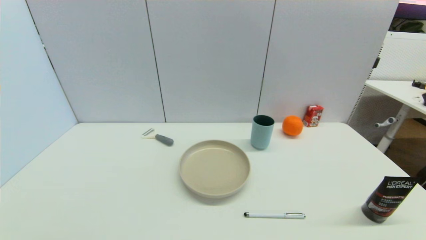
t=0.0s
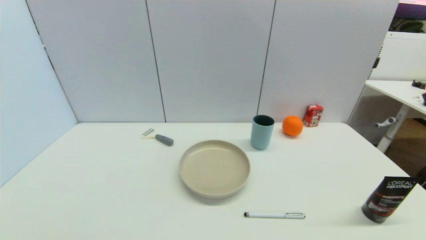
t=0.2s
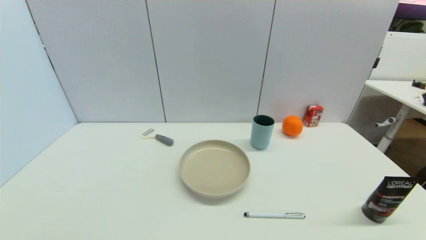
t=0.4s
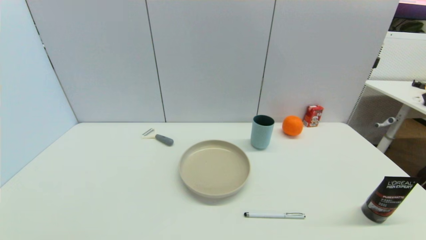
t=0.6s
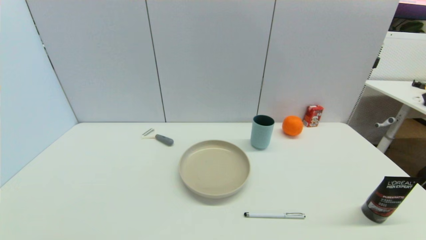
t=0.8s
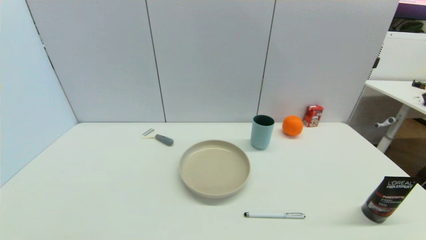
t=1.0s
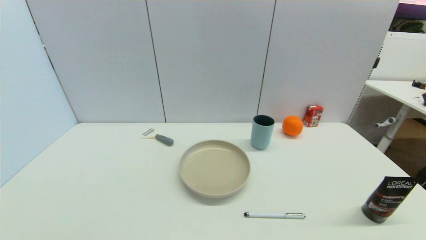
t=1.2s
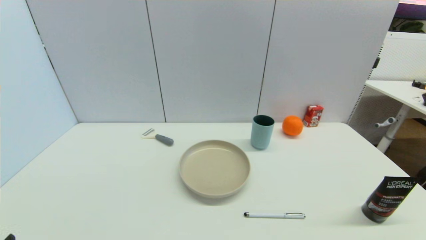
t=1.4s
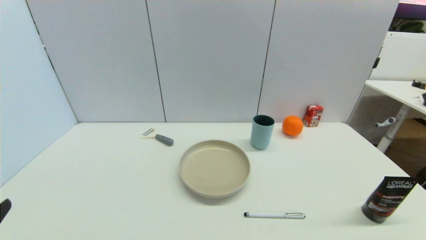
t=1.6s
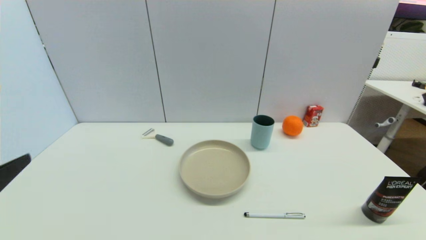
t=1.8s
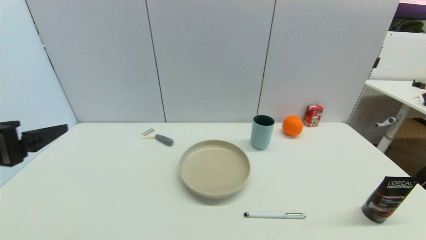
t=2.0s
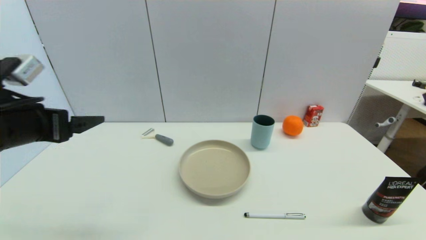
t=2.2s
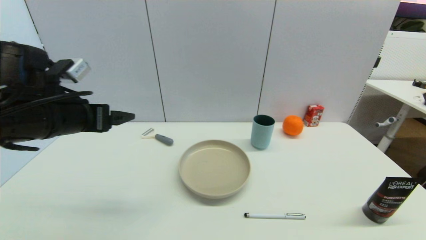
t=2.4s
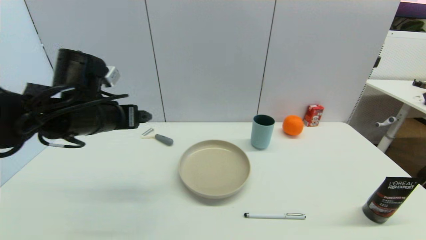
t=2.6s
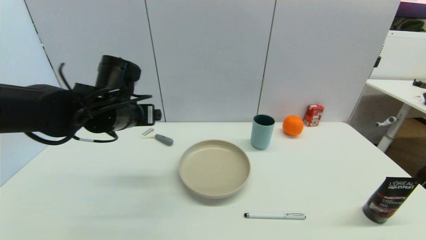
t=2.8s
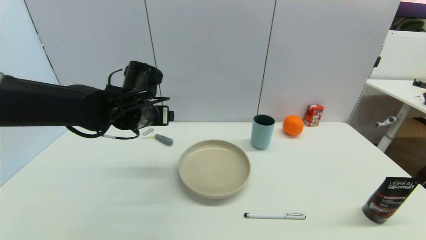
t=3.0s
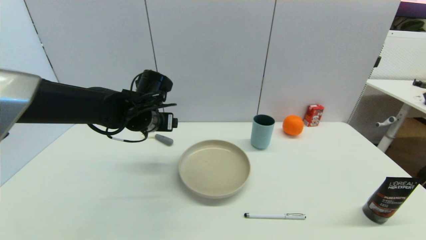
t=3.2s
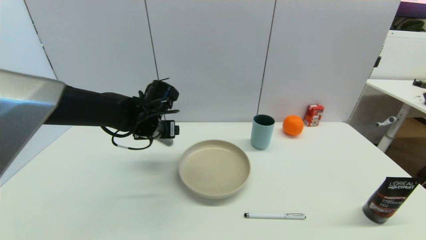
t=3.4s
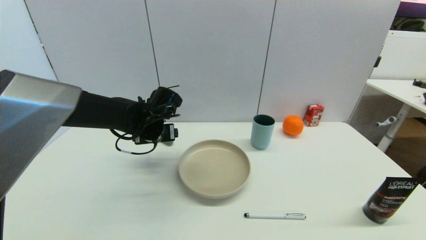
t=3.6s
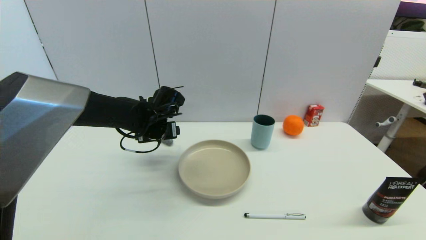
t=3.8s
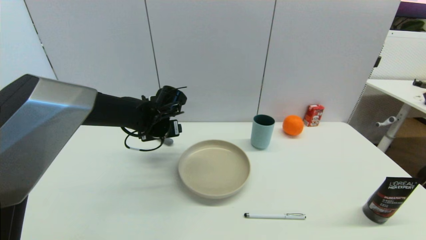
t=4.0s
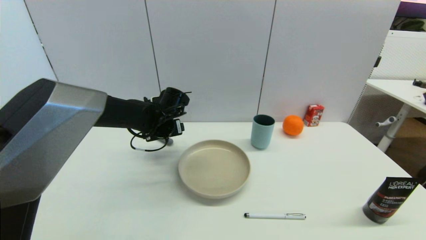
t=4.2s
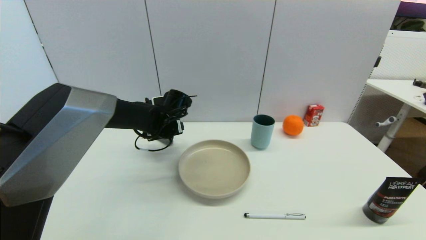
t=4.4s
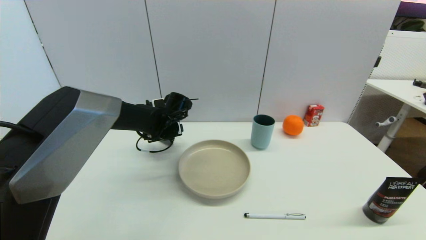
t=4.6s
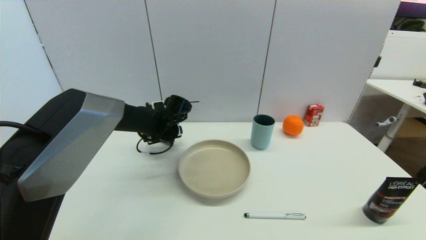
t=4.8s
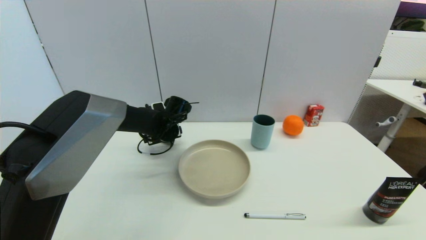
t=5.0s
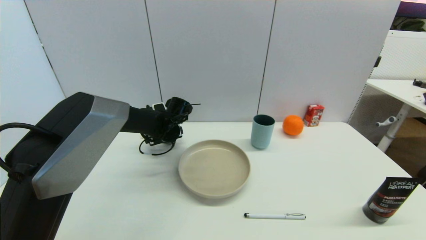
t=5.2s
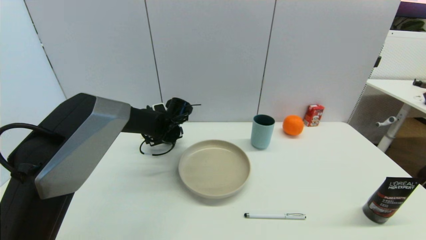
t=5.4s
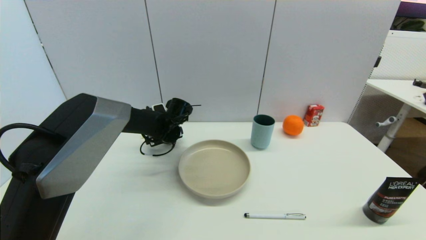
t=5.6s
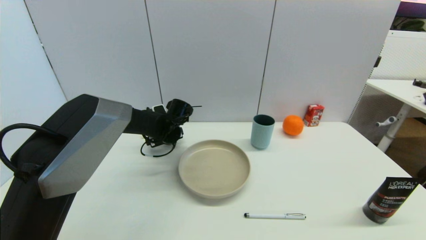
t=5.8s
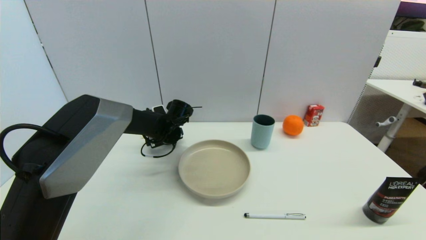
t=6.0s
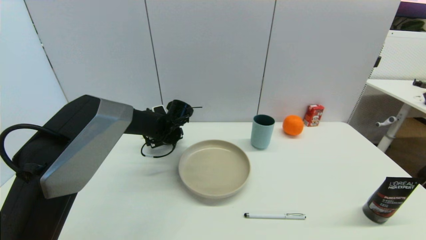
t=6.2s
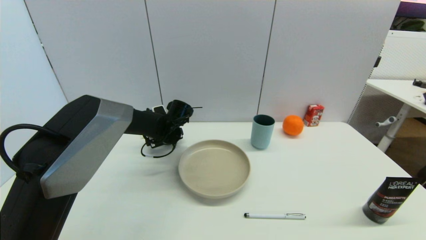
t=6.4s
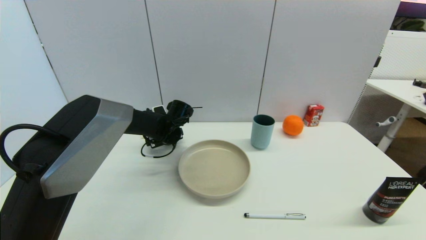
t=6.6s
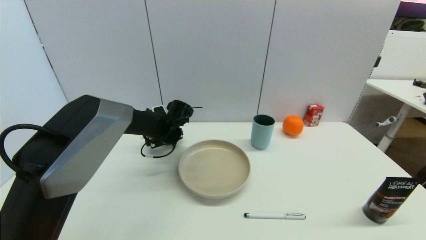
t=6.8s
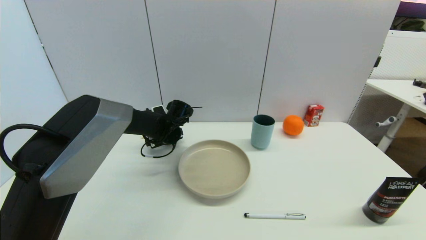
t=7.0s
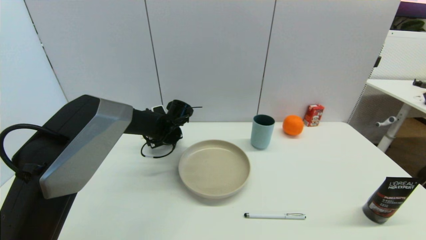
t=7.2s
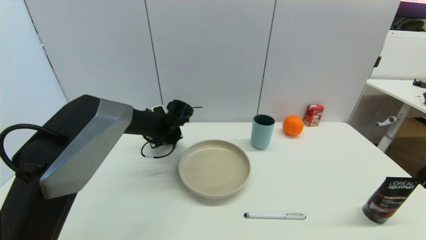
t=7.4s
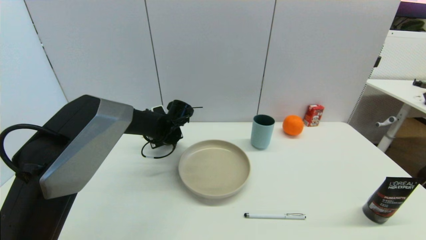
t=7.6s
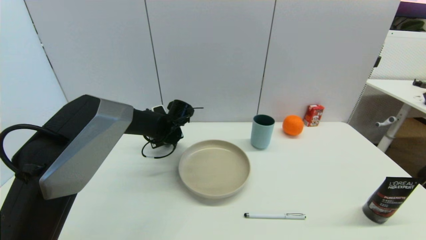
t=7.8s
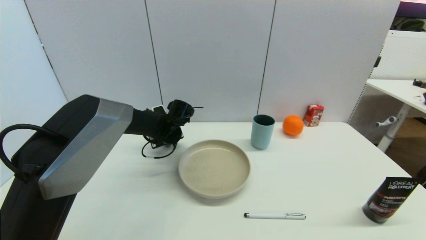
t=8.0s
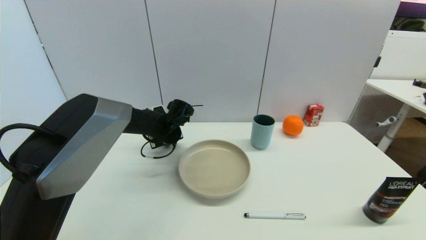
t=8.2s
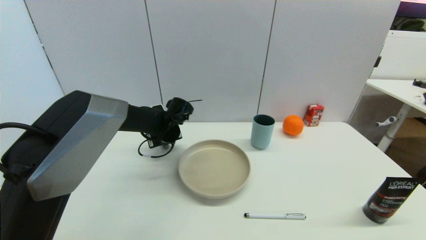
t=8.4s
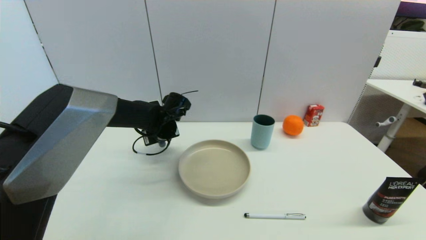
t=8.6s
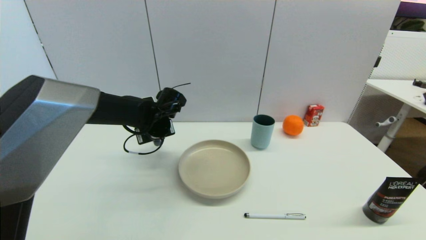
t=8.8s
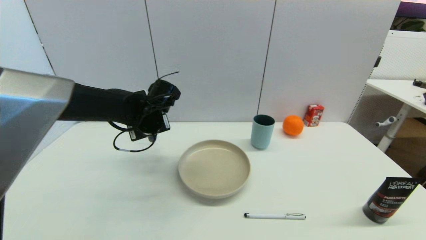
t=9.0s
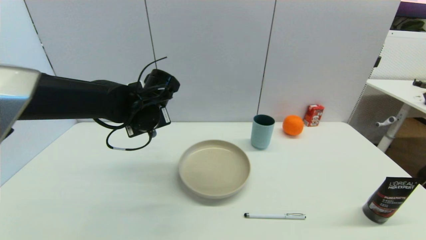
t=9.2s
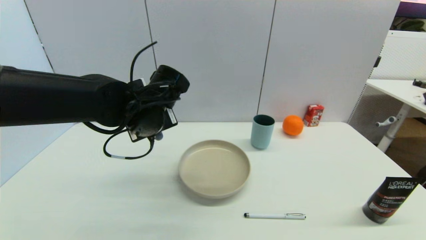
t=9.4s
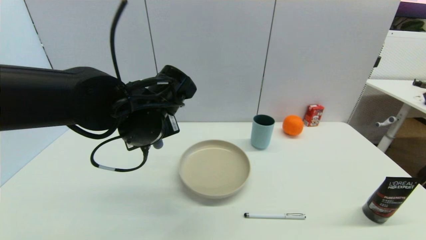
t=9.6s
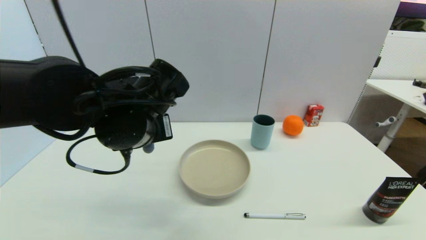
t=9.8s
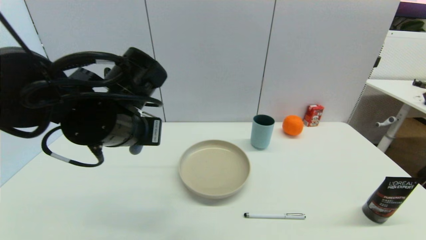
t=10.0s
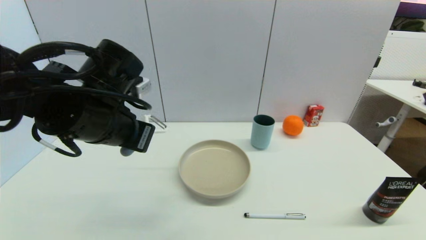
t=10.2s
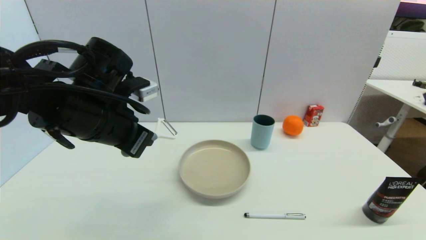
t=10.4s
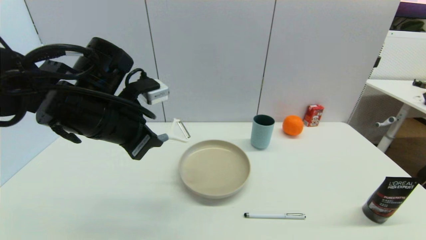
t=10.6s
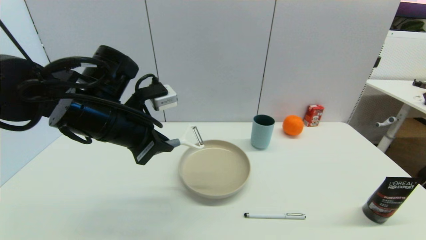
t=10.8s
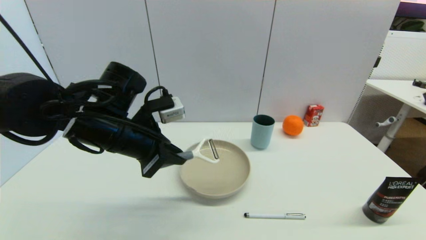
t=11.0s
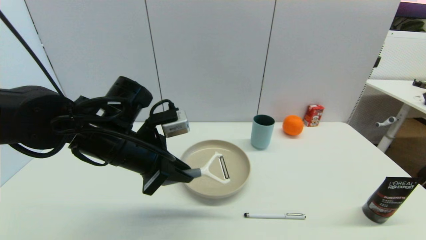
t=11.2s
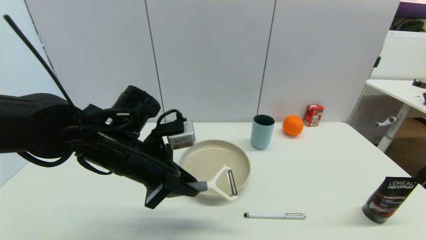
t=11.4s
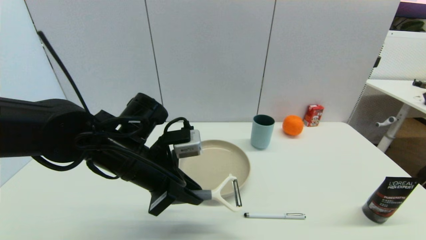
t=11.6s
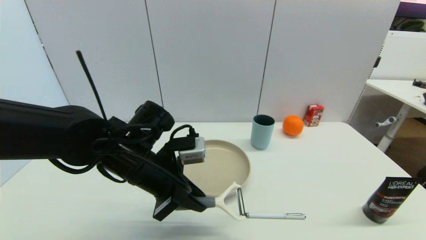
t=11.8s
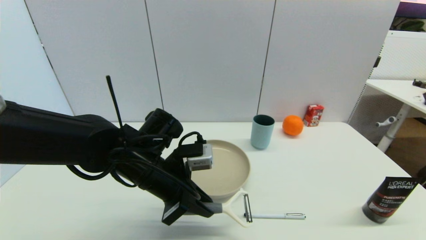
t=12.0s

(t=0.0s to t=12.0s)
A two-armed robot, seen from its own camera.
Step, t=1.6s - t=8.6s: Grasp the peeler with left gripper.
t=1.6s - t=3.0s: The left gripper moves forward and to the right, about 35 cm.
t=3.0s - t=4.4s: The left gripper moves downward and forward, approximately 10 cm.
t=4.4s - t=6.0s: The grippers move only a little.
t=7.6s - t=9.0s: The left gripper goes approximately 10 cm upward and backward.
t=9.0s - t=10.4s: The left gripper moves backward and upward, some 15 cm.
t=10.4s - t=12.0s: The left gripper shifts some 10 cm downward and to the right.

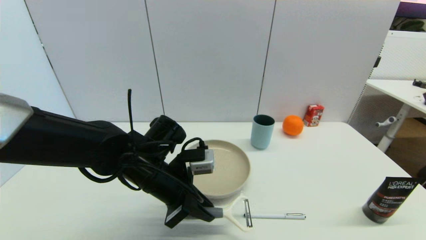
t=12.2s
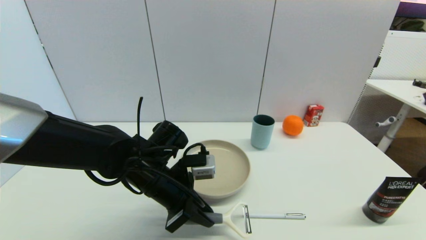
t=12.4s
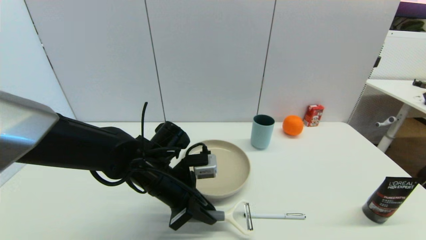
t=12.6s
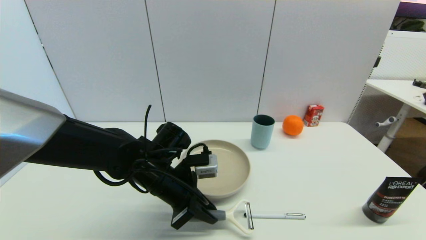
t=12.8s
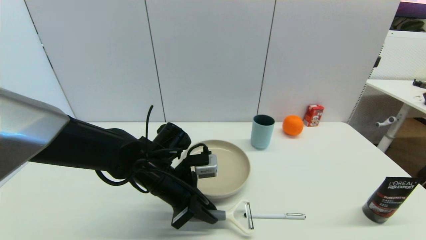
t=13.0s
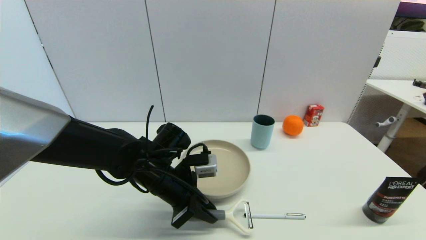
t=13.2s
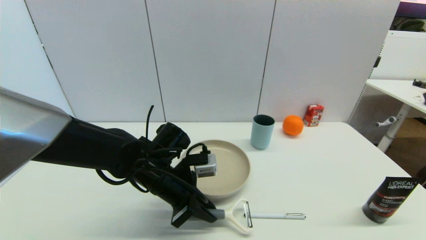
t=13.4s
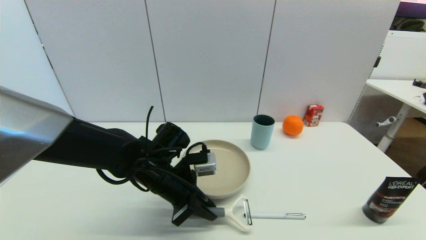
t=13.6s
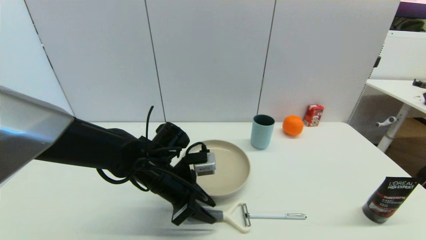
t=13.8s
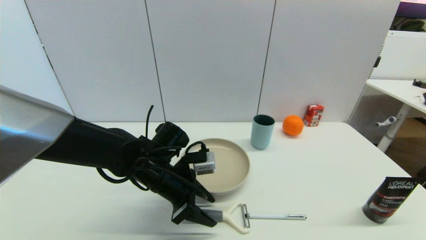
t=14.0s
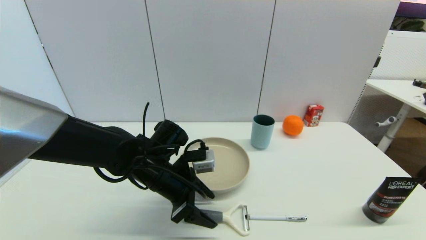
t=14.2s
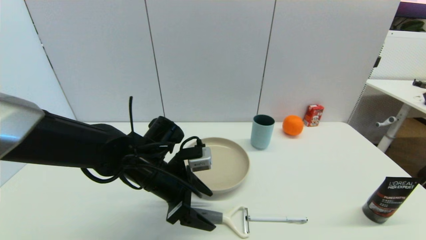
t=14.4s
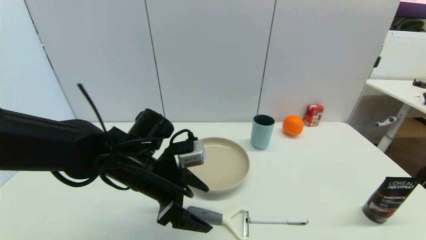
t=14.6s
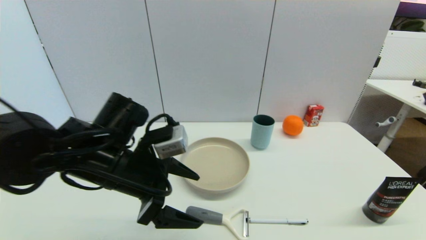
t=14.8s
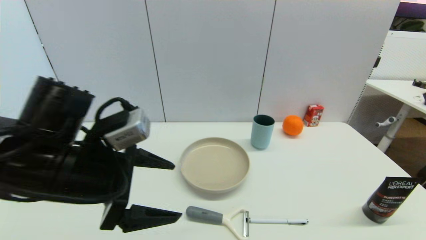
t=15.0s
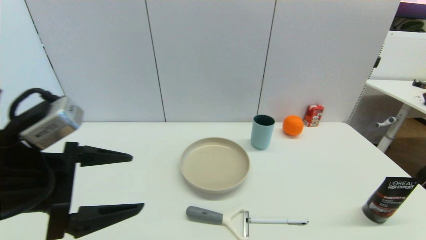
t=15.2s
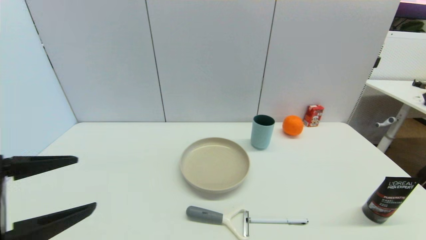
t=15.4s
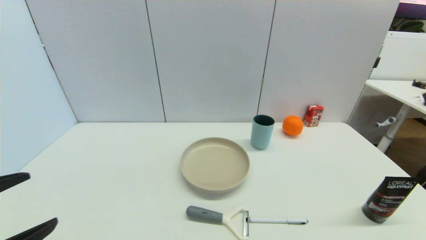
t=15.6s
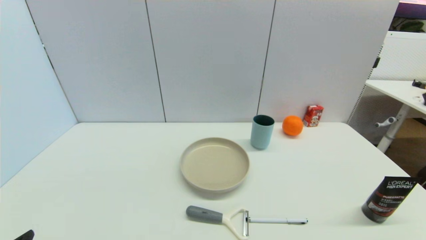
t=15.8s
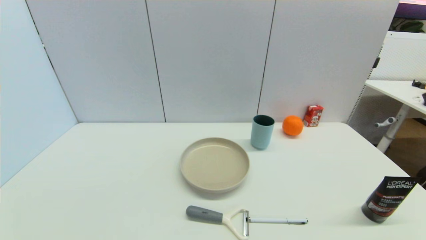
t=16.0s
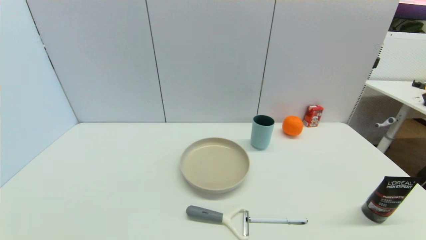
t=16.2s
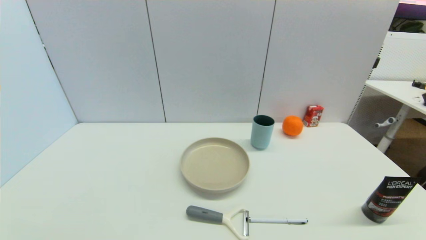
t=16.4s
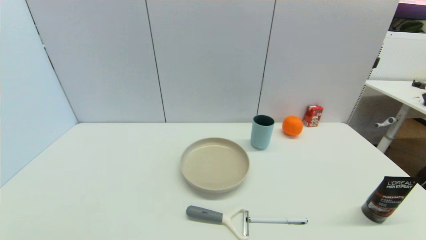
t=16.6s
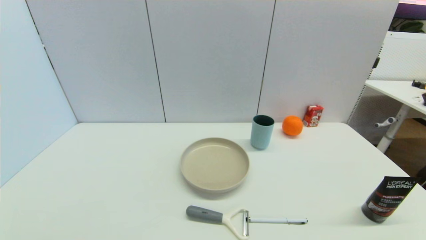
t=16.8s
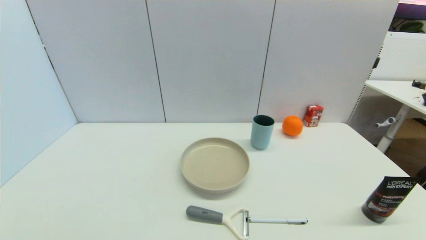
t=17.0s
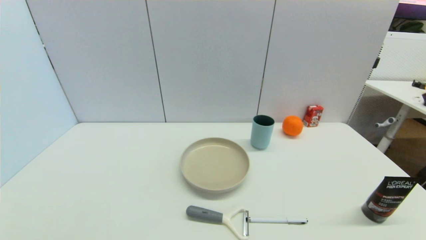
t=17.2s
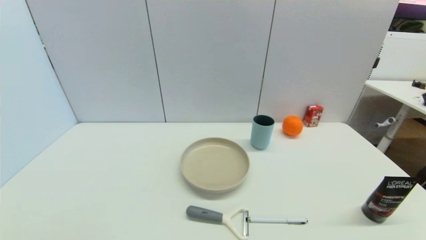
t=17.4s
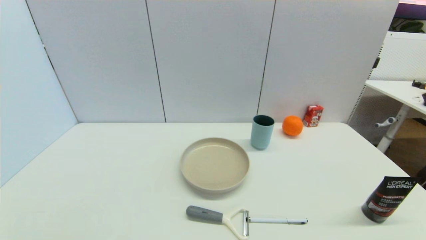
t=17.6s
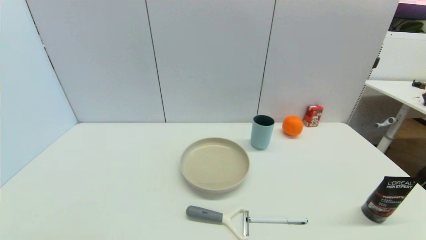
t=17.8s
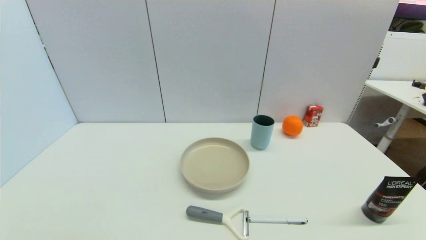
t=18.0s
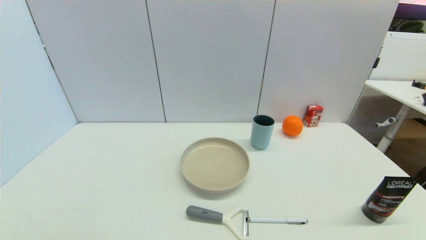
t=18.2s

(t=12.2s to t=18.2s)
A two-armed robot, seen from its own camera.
Step, t=12.2s - t=14.4s: Place the peeler on the table with left gripper.
t=12.2s - t=13.8s: The grippers stay close to where they were, moving slightly.
t=13.8s - t=15.2s: The left gripper is displaced upward, backward and to the left by some 25 cm, and opens its fingers.
t=15.2s - t=16.6s: The left gripper goes some 25 cm downward, backward and to the left.
t=16.6s - t=18.2s: Neither gripper changes place.
